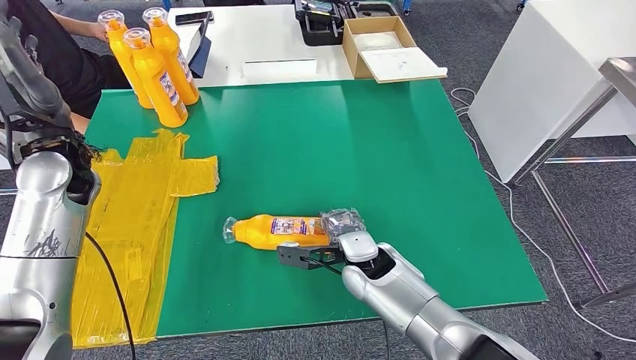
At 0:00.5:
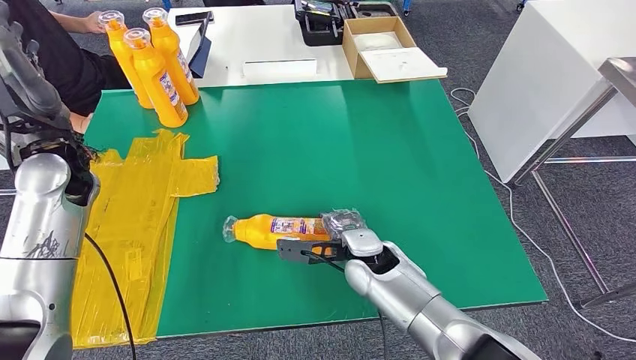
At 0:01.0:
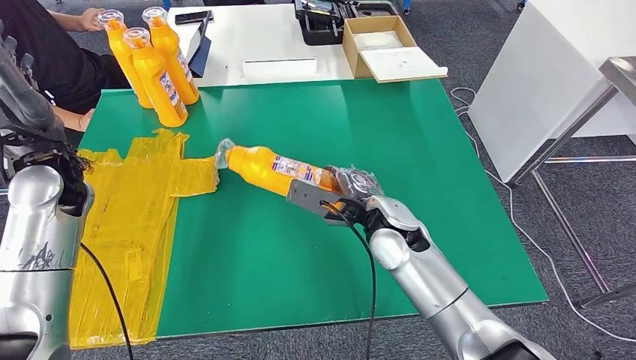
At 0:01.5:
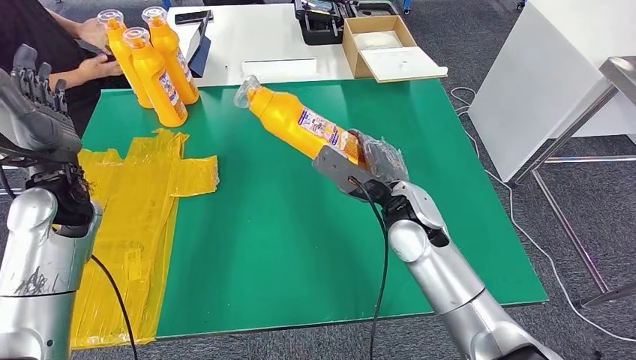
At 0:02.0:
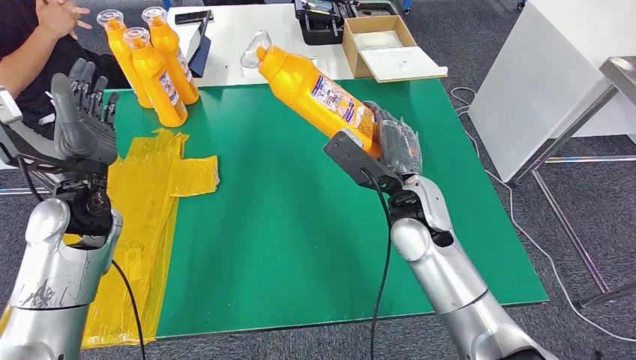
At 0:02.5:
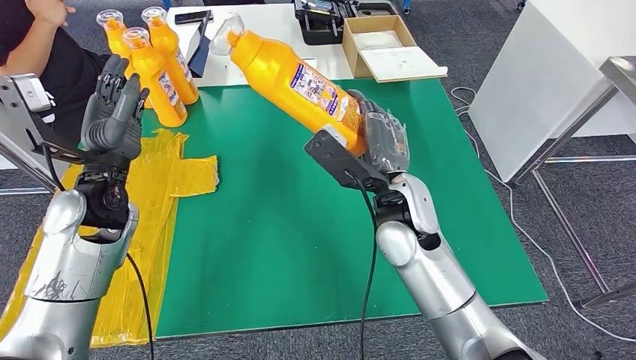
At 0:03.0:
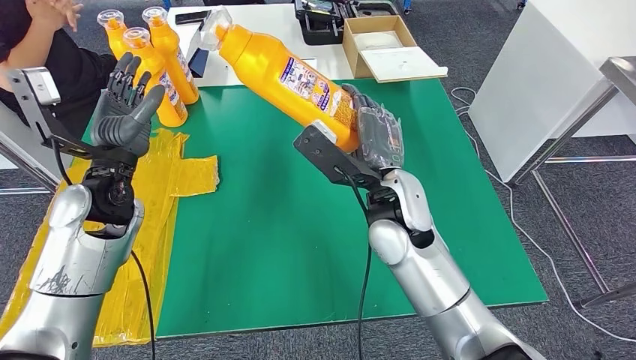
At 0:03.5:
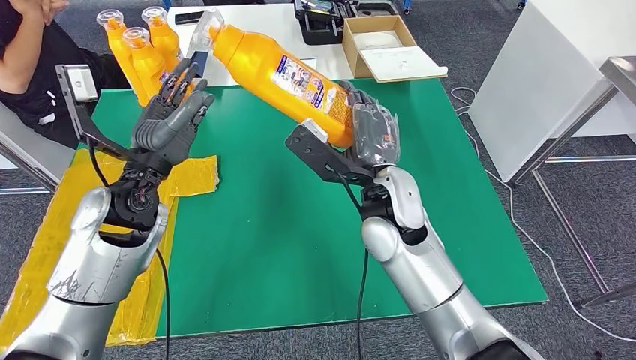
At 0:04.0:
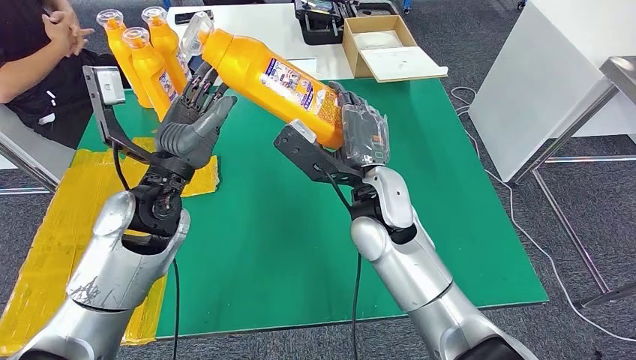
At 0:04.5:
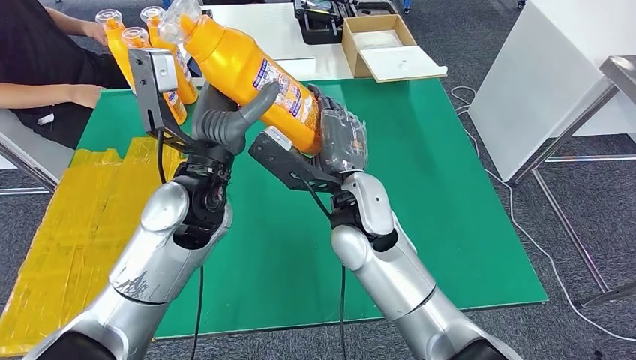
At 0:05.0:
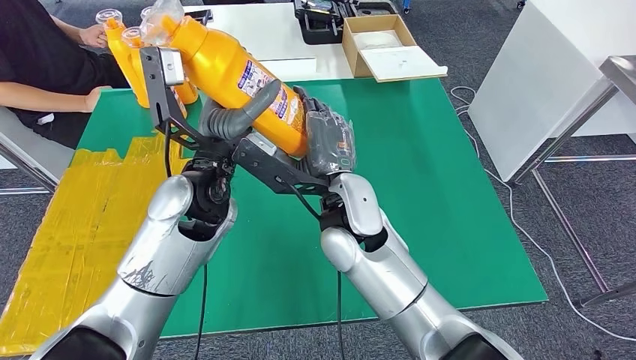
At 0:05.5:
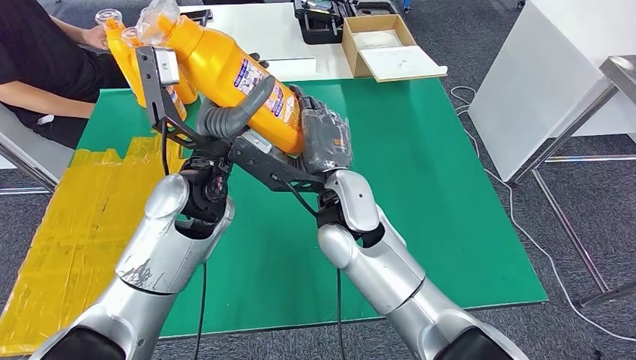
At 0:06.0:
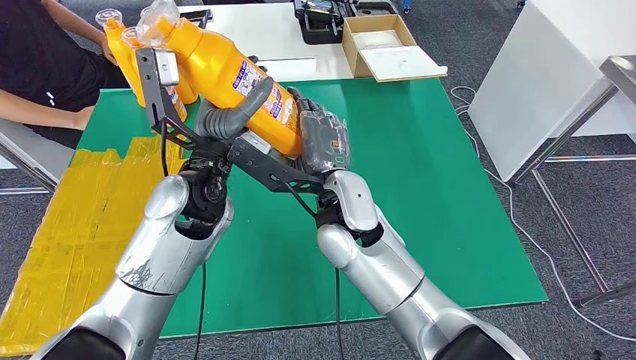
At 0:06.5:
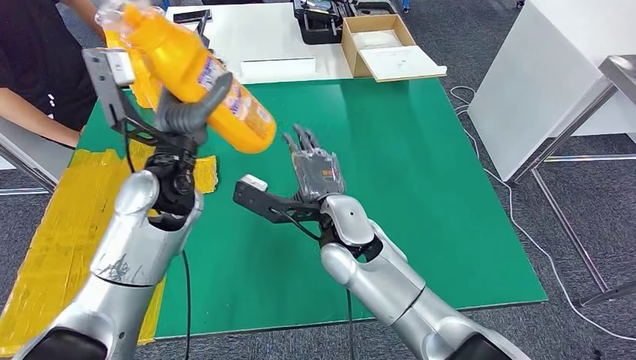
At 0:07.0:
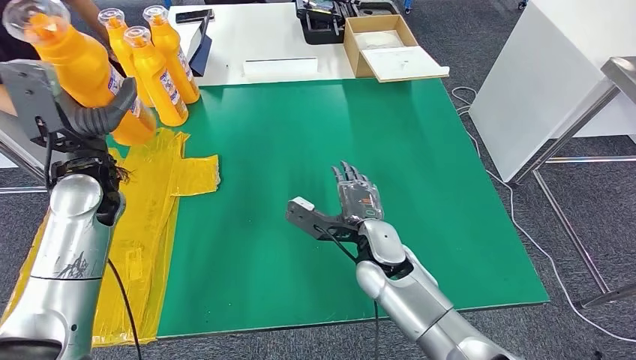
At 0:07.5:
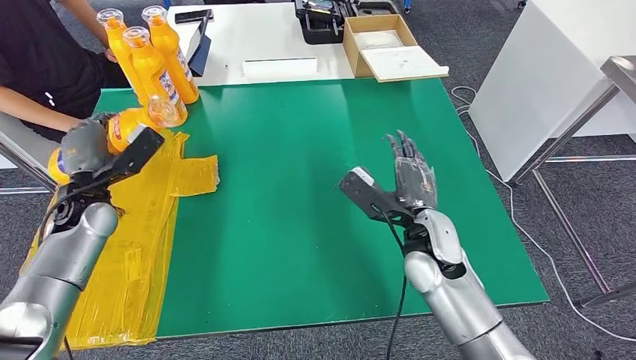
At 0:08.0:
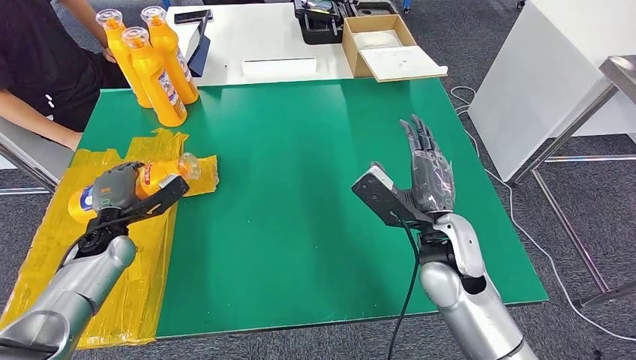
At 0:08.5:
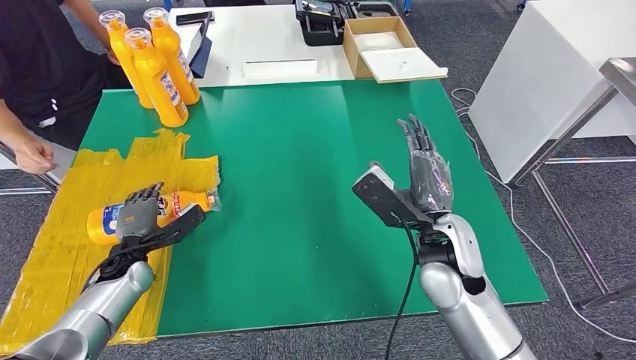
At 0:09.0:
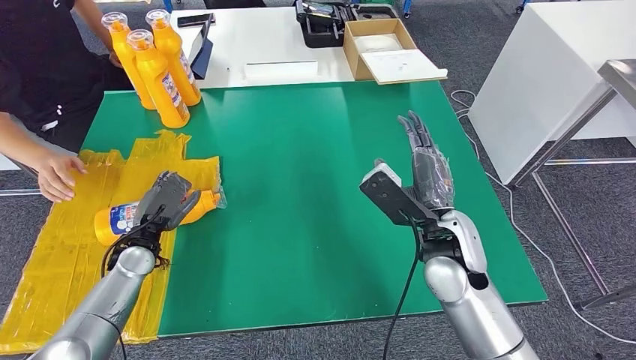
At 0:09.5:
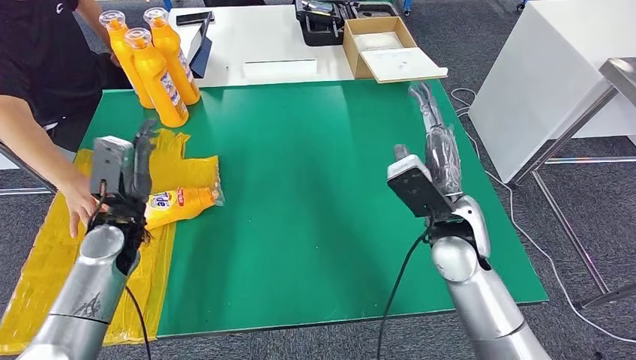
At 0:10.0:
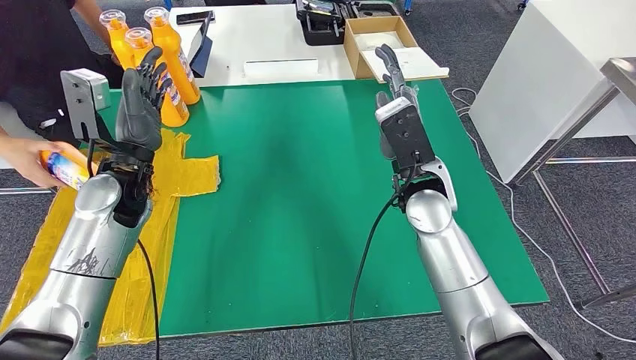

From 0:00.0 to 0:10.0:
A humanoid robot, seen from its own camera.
Step, from 0:00.0 to 0:02.0: Pick up the fast-moving consumer goods bottle from the table.
Step, from 0:02.5 to 0:10.0: Flip the fast-moving consumer goods bottle to the front side.
